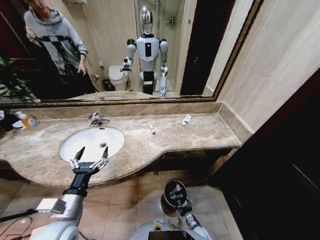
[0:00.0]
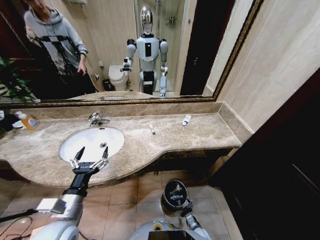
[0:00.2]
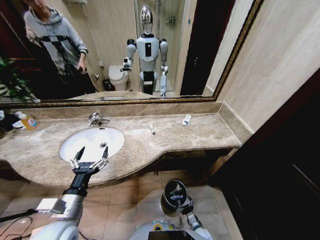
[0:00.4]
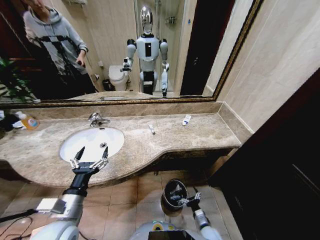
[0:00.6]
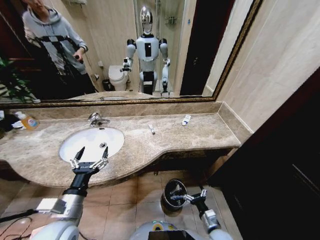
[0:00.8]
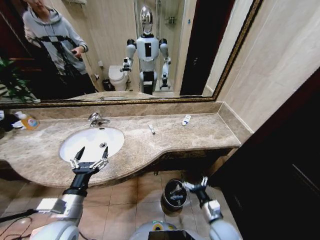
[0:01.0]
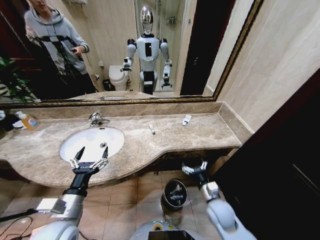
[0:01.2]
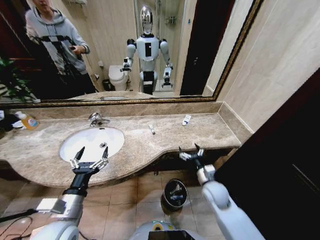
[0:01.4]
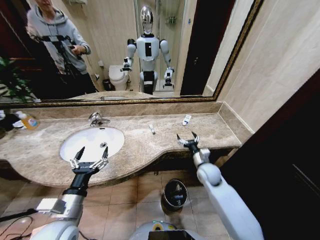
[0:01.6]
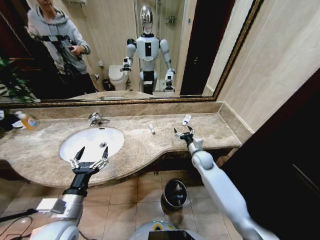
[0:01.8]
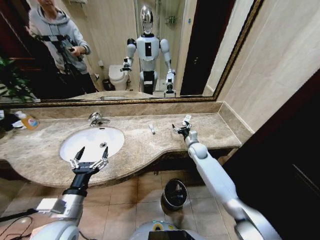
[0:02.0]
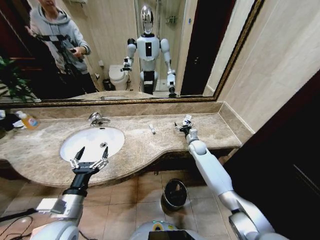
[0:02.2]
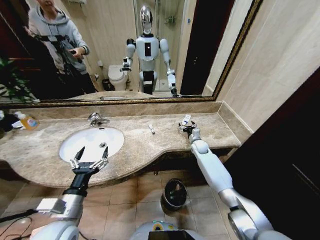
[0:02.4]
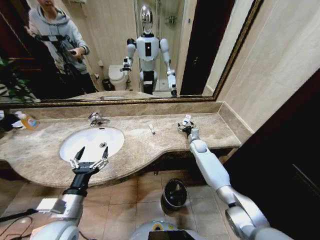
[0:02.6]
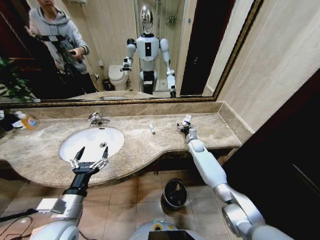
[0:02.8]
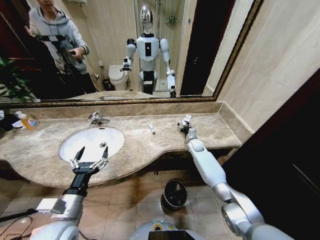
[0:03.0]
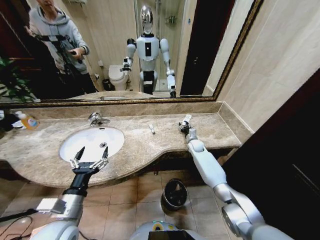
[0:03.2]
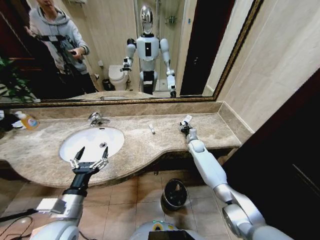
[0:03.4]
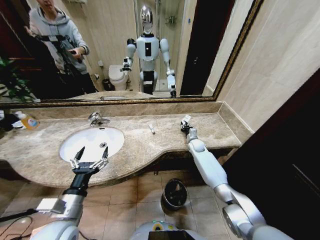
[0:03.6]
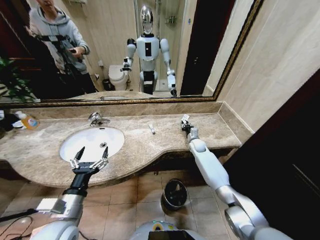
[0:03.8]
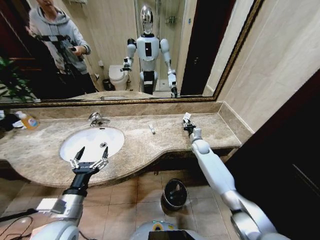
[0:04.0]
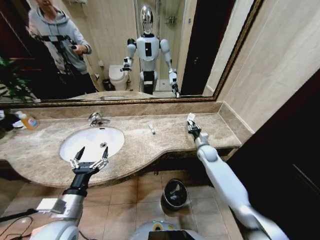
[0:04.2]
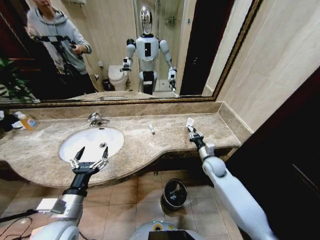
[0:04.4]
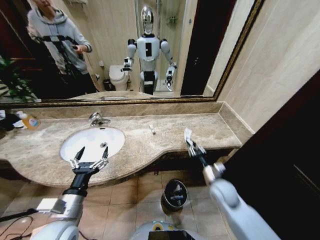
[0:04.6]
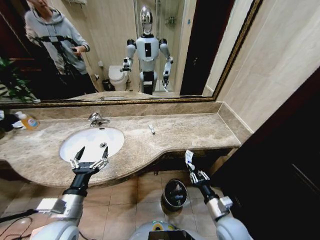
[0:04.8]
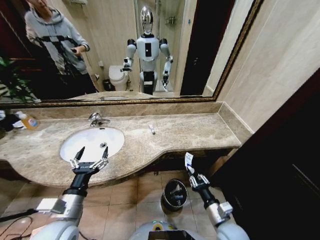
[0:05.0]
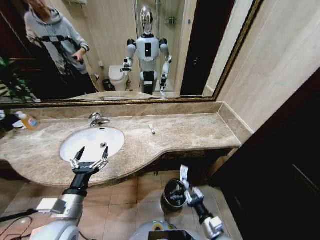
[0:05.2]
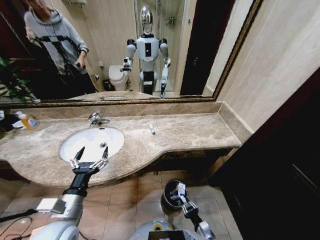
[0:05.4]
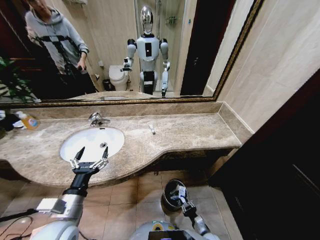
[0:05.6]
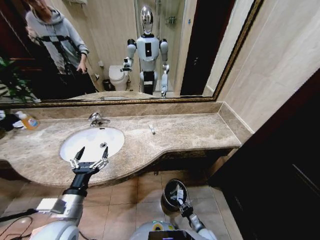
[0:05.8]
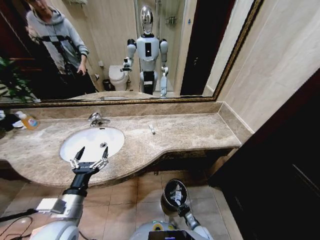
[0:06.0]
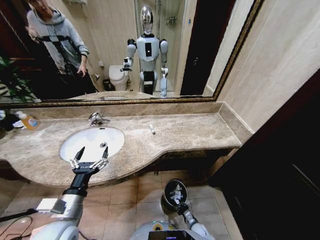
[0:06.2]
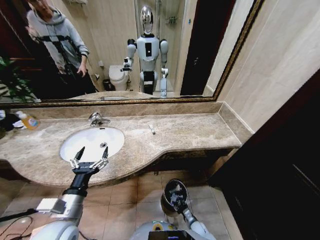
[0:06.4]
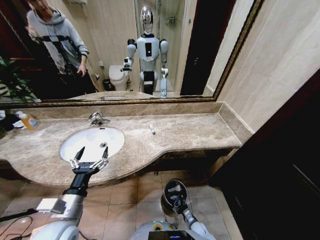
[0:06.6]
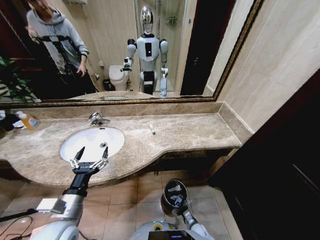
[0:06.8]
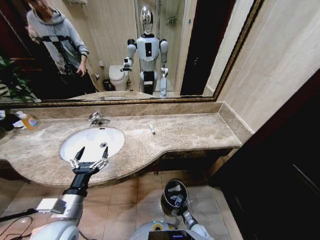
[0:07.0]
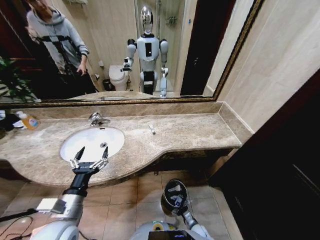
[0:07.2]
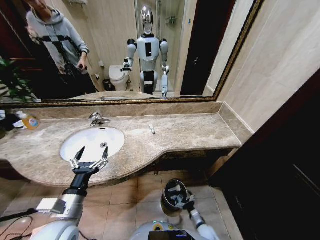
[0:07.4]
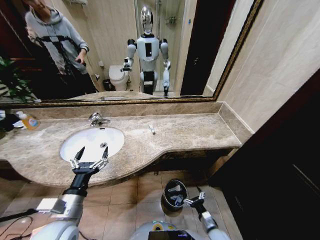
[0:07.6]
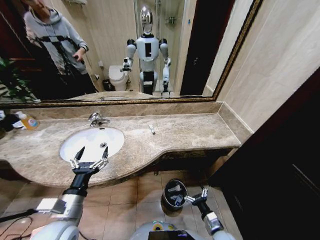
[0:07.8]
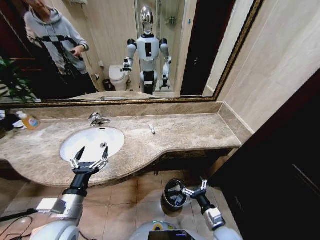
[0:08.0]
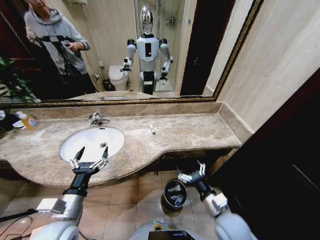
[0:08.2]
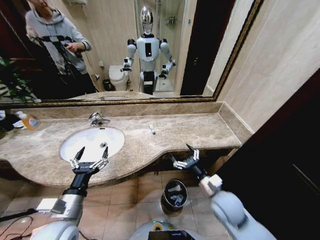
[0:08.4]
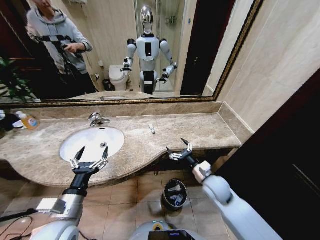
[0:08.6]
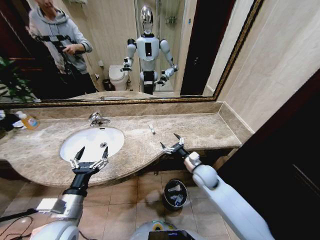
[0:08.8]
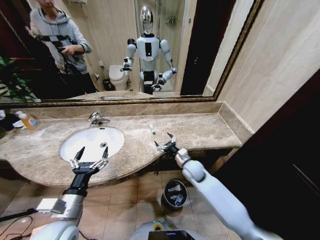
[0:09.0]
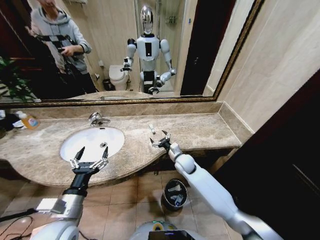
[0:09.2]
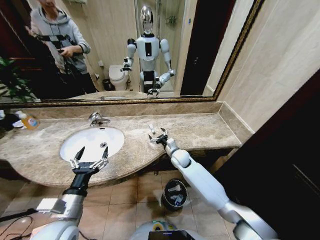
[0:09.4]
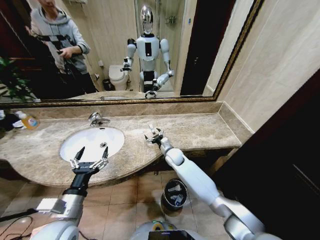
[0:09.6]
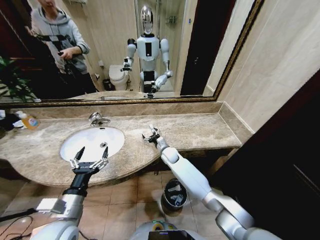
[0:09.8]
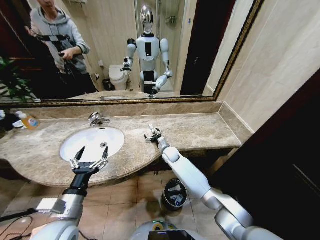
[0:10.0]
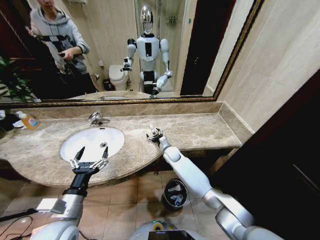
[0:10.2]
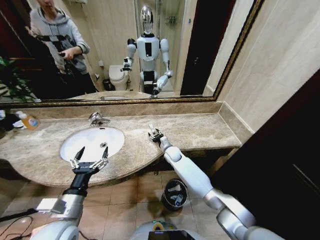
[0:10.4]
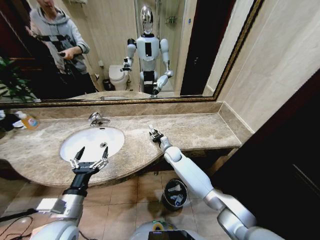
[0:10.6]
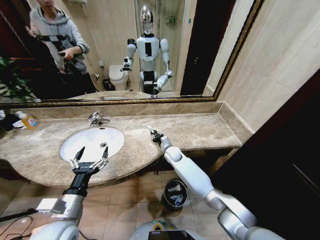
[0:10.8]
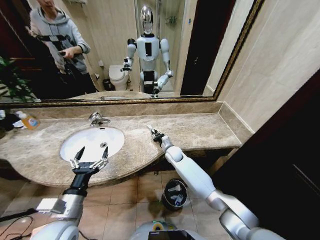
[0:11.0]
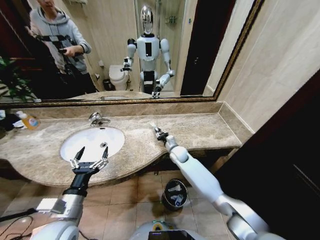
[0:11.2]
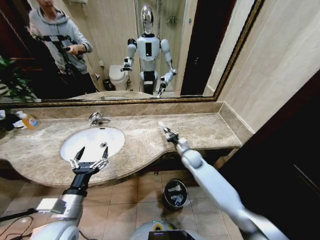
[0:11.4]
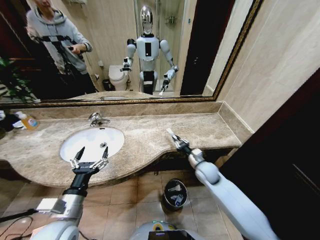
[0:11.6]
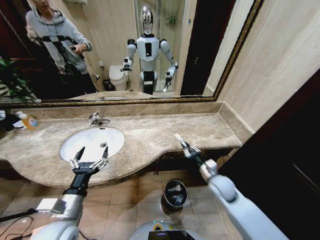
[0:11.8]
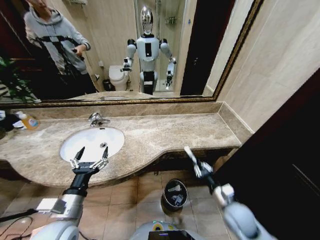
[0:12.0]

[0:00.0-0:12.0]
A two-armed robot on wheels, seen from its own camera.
Task of the whole recording: Pick up the trash from the sink and place it in the trash bin.
0:00.0 to 0:01.6: The right gripper moves upward and forward, roughly 40 cm.
0:01.6 to 0:03.0: The right gripper travels forward by about 20 cm.
0:03.0 to 0:04.4: The right gripper shifts roughly 20 cm backward, and closes up.
0:04.4 to 0:06.0: The right gripper goes about 40 cm downward and backward.
0:06.0 to 0:07.6: The right gripper moves upward, about 10 cm, and opens its fingers.
0:07.6 to 0:09.0: The right gripper moves forward, upward and to the left, approximately 35 cm.
0:09.0 to 0:10.4: The right gripper is displaced forward and to the left by about 15 cm.
0:10.4 to 0:12.0: The right gripper is displaced backward and to the right by some 35 cm, and closes.

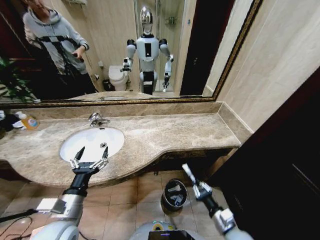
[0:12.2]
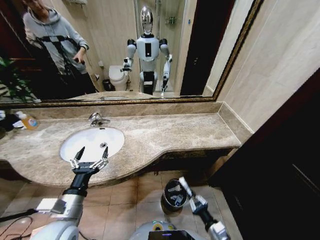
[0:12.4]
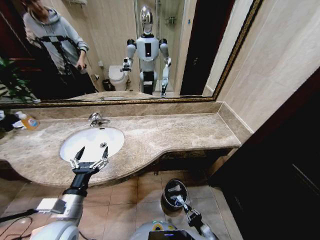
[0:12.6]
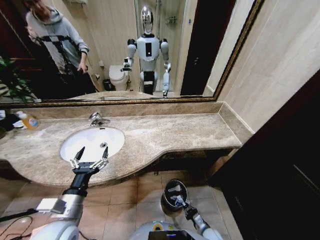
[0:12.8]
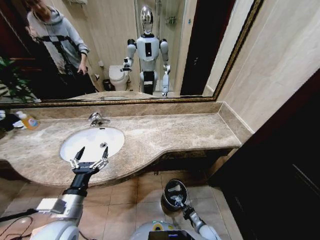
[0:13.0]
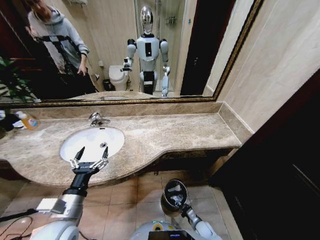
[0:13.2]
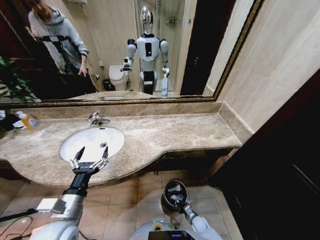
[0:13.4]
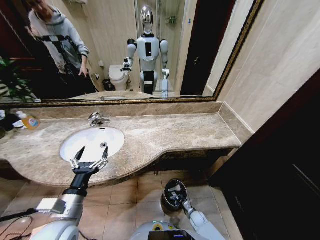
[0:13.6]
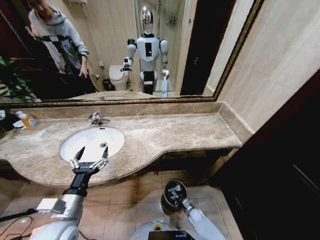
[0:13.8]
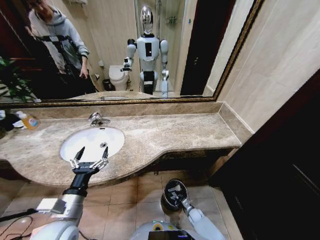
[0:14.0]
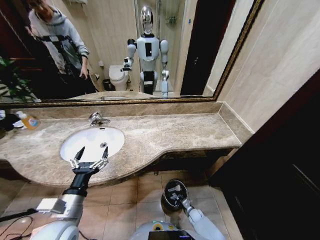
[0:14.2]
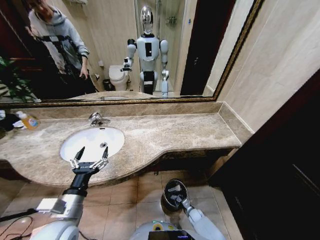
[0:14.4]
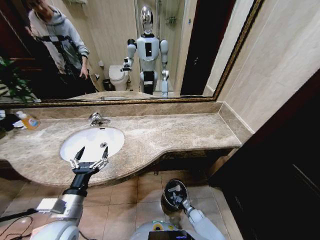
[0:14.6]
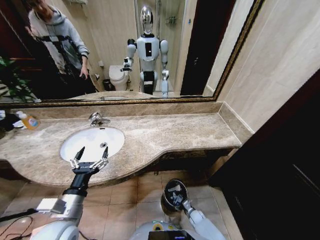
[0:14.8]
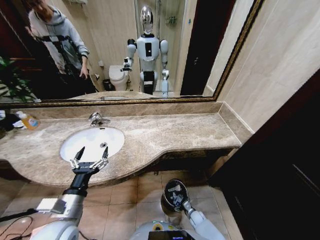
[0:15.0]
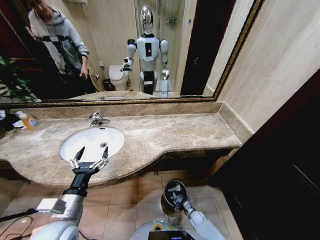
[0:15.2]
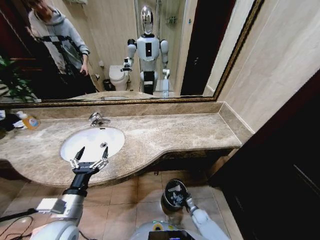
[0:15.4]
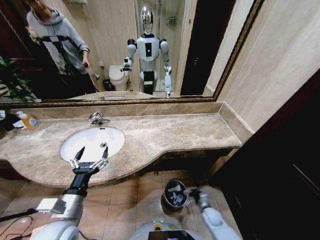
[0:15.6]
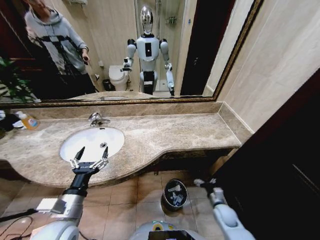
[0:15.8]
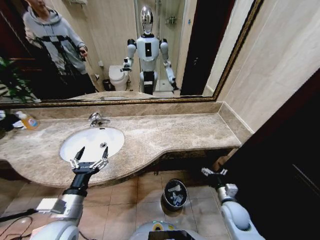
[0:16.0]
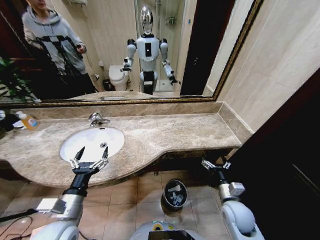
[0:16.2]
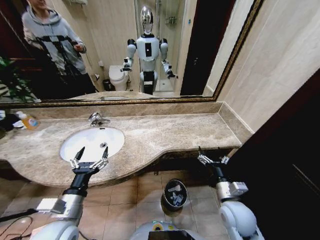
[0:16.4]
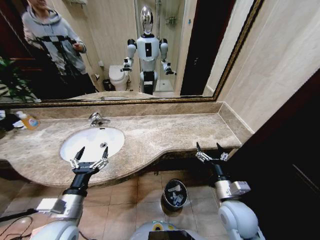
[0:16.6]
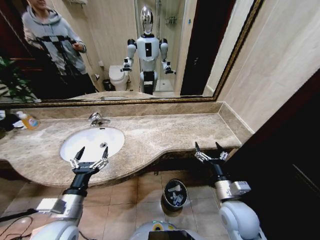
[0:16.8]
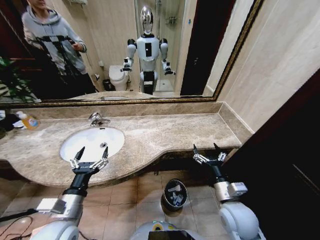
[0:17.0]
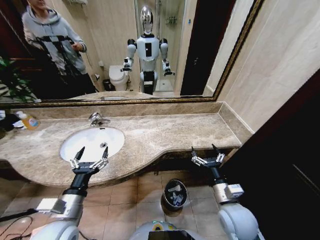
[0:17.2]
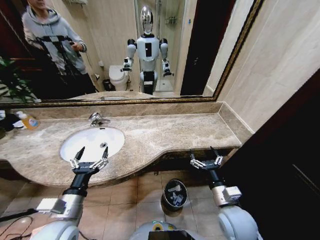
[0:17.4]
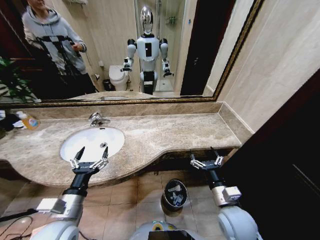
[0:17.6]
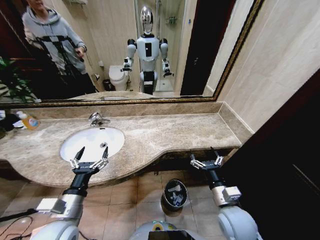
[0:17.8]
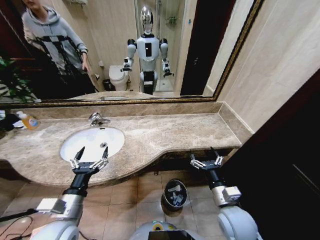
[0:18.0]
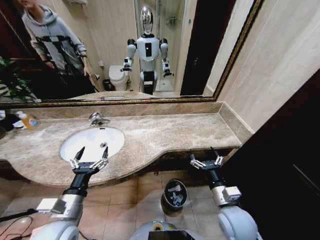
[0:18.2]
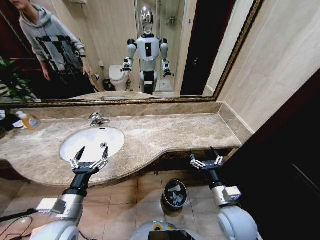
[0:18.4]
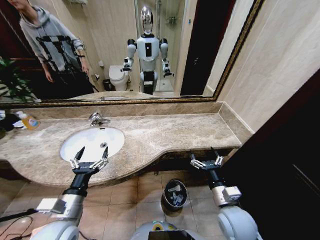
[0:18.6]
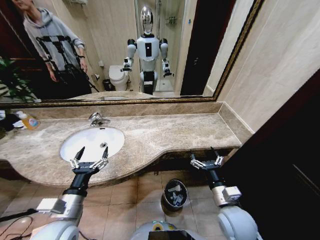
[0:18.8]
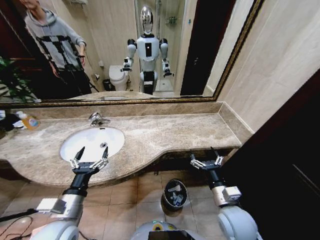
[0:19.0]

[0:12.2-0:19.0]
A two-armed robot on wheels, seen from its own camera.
Task of the whole recording: Pick up the trash from the sink and place it in the trash bin.
0:12.2 to 0:13.6: The right gripper is displaced downward by about 30 cm.
0:15.0 to 0:16.2: The right gripper moves upward, roughly 35 cm.
0:16.2 to 0:17.6: The right gripper moves upward and to the left, approximately 10 cm.
0:17.6 to 0:19.0: The two grippers keep their place.
